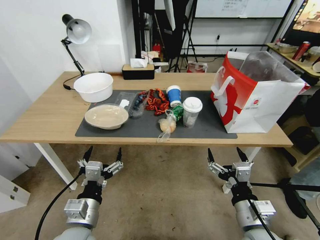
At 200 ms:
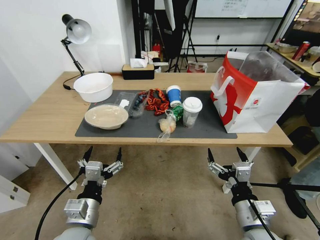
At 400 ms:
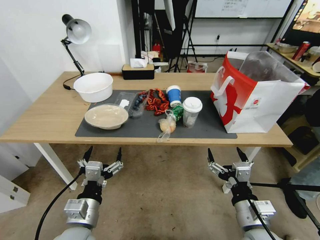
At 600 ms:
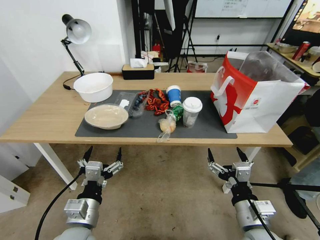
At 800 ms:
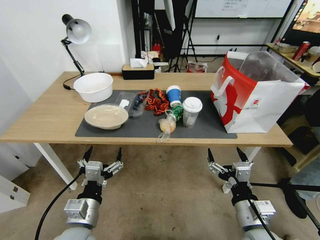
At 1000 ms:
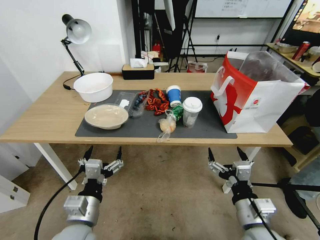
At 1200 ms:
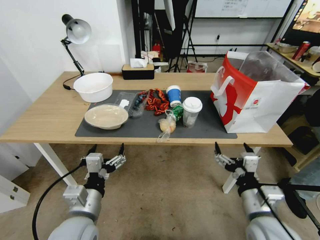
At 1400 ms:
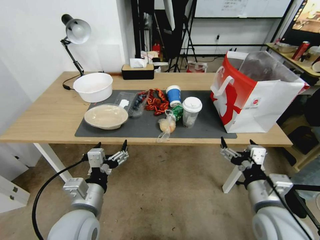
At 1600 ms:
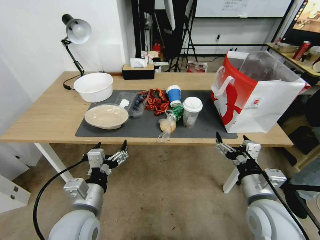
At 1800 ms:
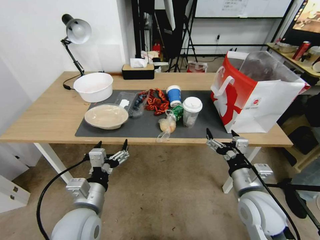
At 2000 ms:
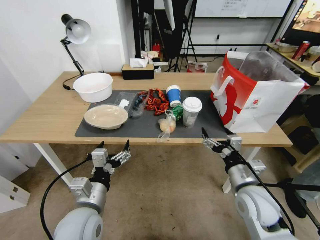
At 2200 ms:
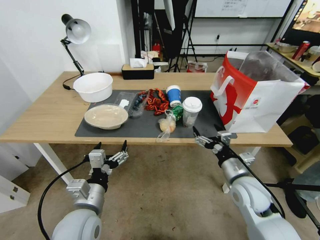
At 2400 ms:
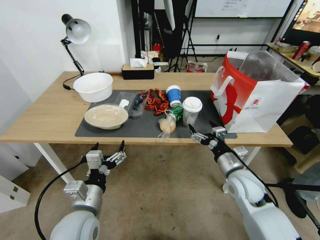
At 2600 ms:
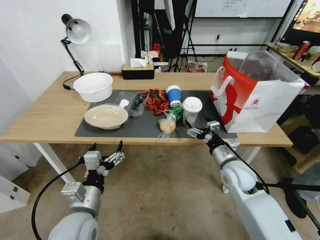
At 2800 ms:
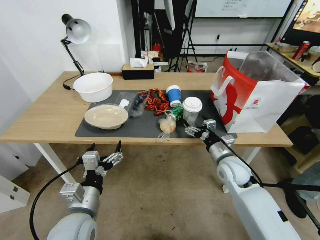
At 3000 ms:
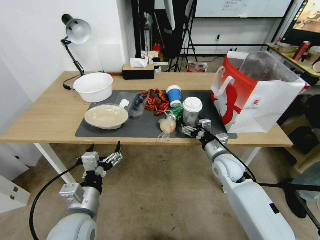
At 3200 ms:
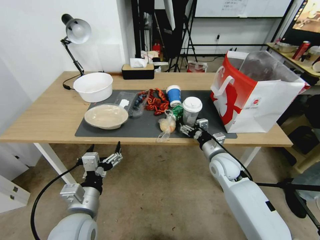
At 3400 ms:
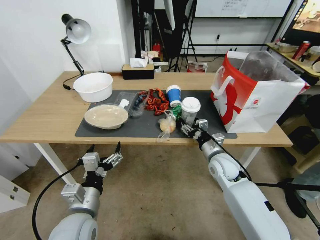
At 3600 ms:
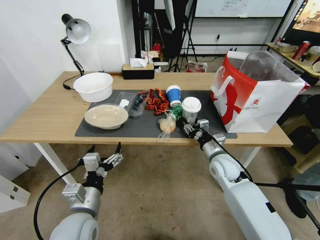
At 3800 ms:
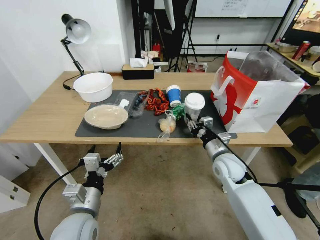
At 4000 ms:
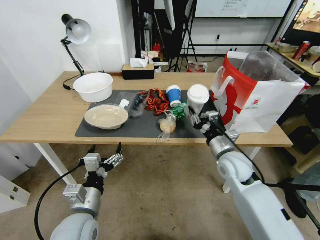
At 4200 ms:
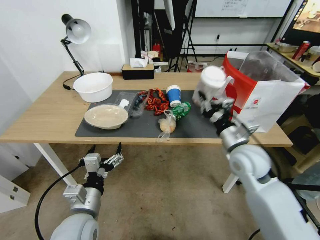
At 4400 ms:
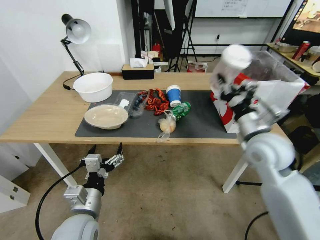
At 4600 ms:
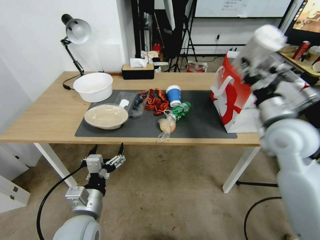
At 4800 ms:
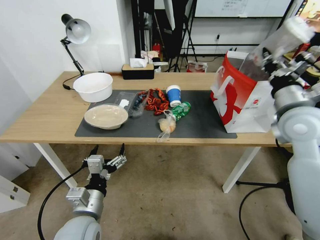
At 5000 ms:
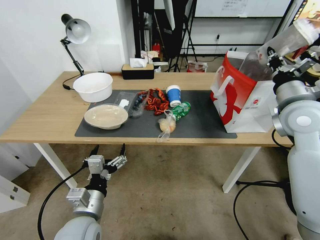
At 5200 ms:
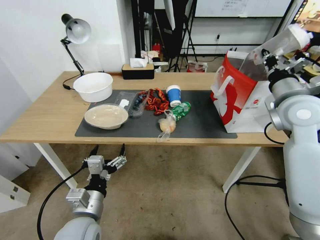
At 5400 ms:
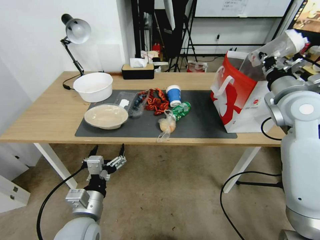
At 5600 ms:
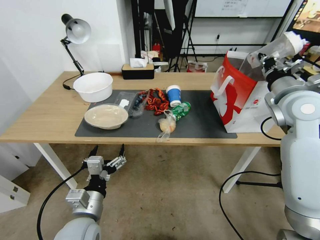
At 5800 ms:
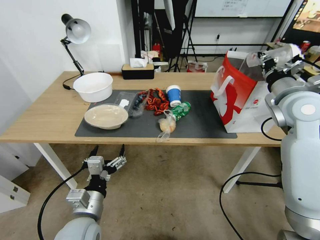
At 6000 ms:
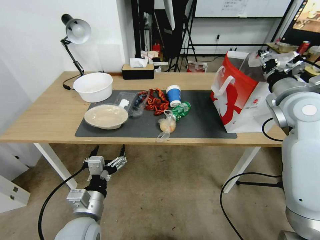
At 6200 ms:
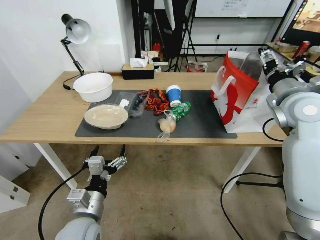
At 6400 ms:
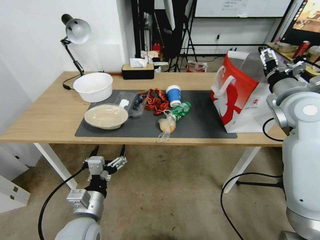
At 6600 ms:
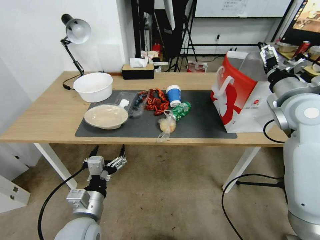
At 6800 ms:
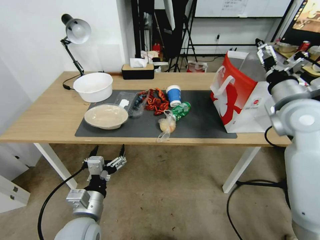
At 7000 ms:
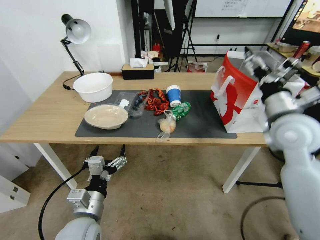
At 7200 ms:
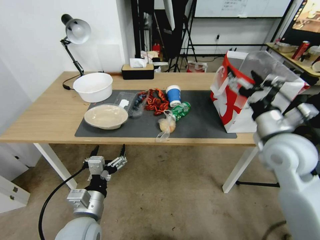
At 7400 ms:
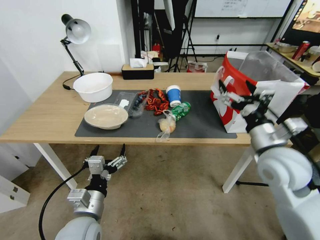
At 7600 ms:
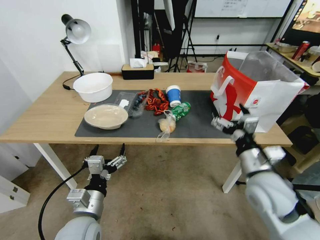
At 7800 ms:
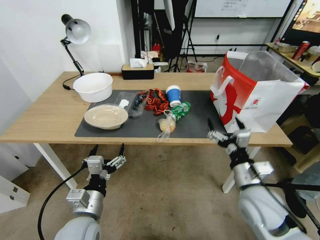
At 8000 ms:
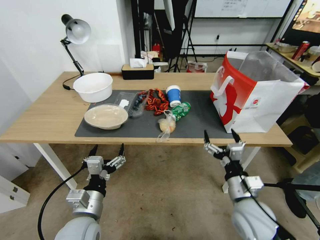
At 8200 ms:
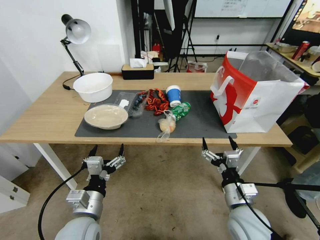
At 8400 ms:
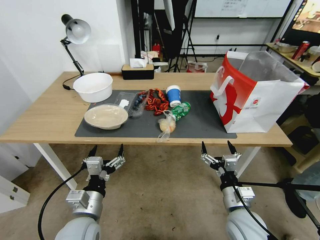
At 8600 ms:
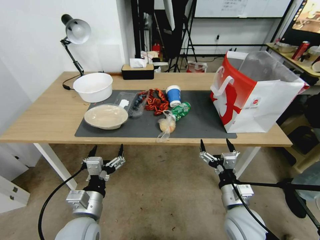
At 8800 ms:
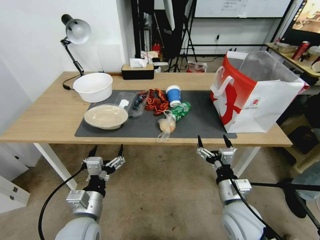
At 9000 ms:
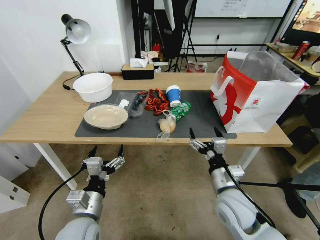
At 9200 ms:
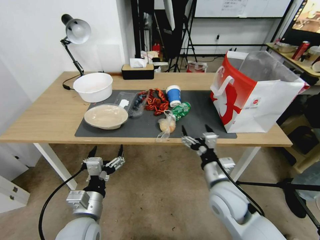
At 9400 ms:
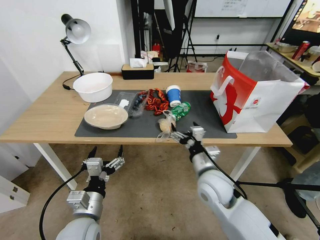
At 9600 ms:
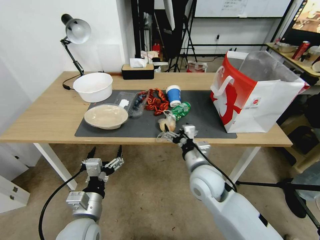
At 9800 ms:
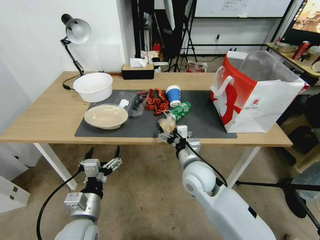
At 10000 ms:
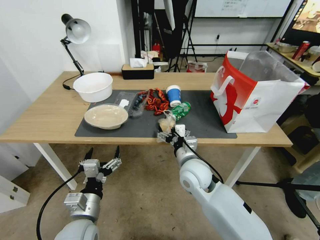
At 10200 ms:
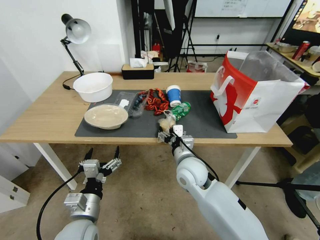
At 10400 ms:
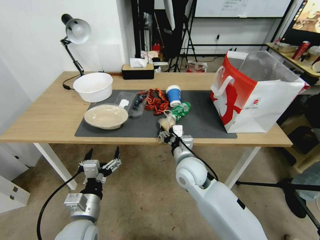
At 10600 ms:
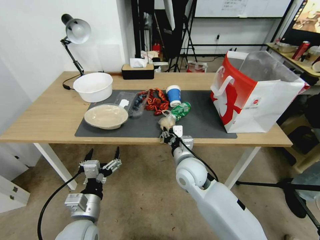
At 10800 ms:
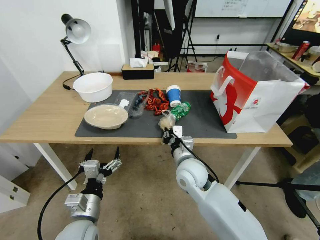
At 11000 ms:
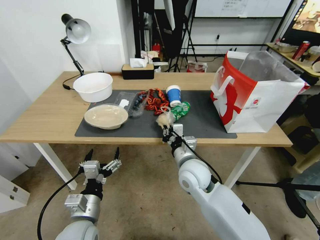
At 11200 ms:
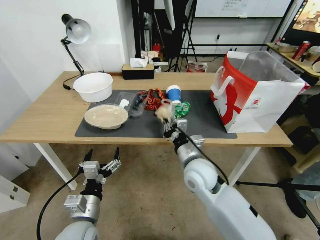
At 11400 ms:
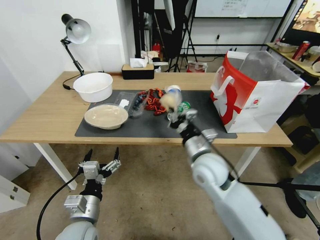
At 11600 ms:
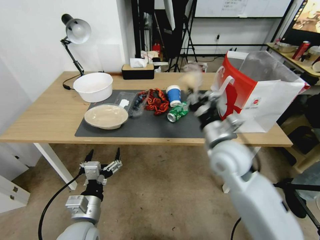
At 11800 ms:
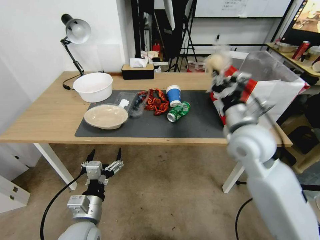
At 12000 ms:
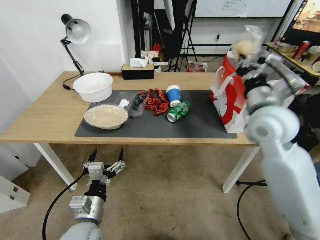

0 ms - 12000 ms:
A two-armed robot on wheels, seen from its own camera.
1600 ms - 3000 ms: The right gripper heads forward and downward, covering approximately 20 cm.
3000 ms - 4400 ms: The right gripper travels upward by about 15 cm, and closes up.
4400 ms - 6000 ms: The right gripper moves upward, to the right and forward, approximately 15 cm, and opens.
6000 ms - 7600 ms: The right gripper goes approximately 20 cm downward, backward and to the left, and opens its fingers.
7600 ms - 9000 ms: The right gripper moves downward and to the left, roughly 10 cm.
9000 ms - 10400 ms: The right gripper moves to the left and forward, some 15 cm, and closes up.
10400 ms - 12000 ms: The right gripper shifts about 25 cm upward and to the right, and closes.

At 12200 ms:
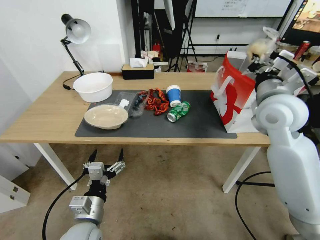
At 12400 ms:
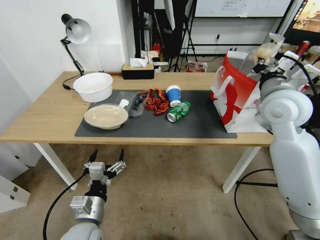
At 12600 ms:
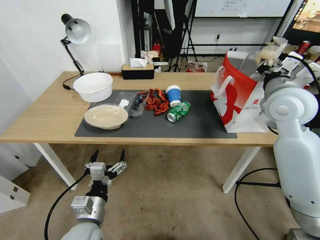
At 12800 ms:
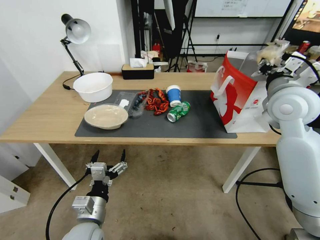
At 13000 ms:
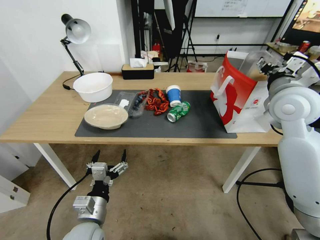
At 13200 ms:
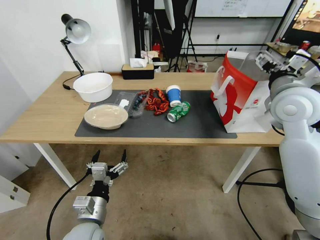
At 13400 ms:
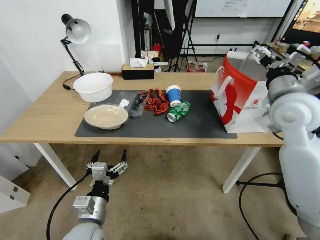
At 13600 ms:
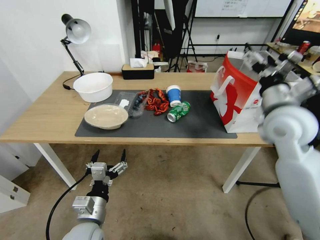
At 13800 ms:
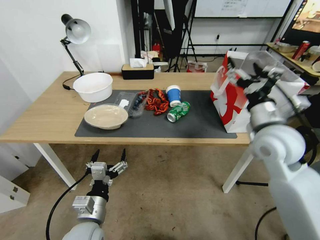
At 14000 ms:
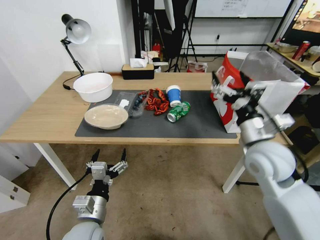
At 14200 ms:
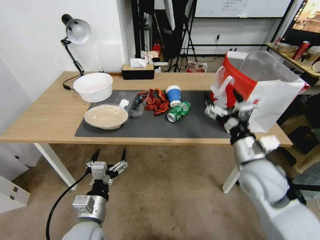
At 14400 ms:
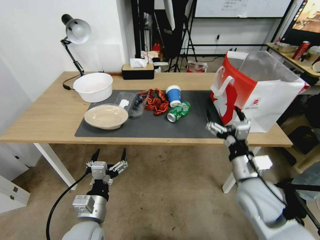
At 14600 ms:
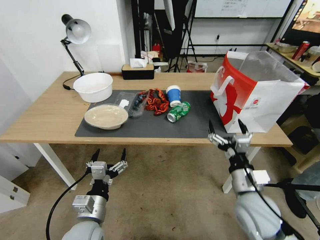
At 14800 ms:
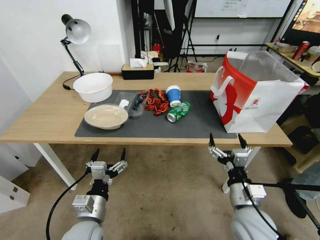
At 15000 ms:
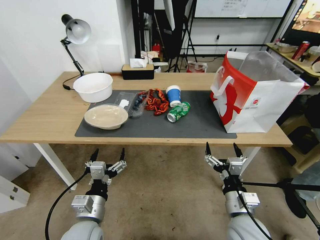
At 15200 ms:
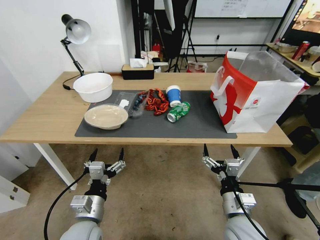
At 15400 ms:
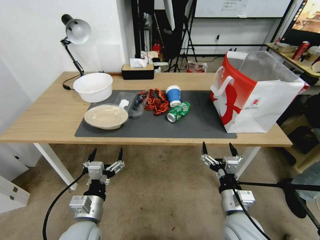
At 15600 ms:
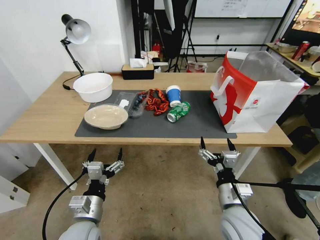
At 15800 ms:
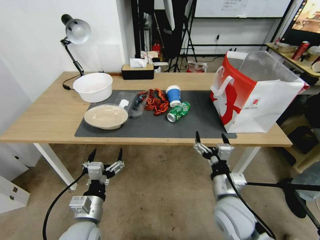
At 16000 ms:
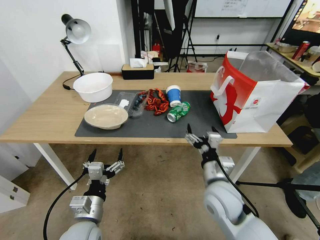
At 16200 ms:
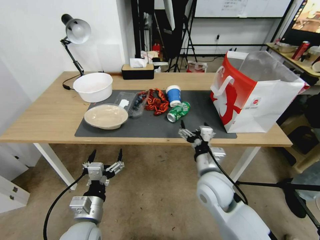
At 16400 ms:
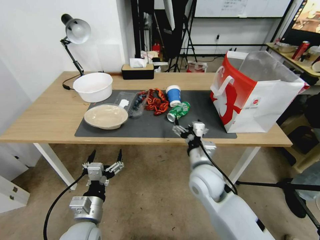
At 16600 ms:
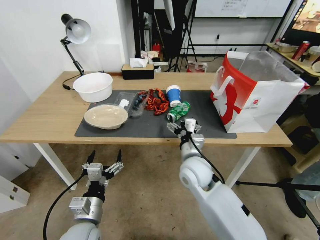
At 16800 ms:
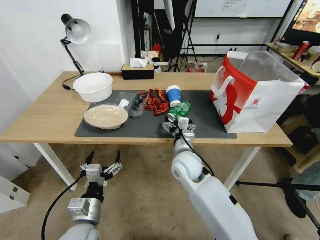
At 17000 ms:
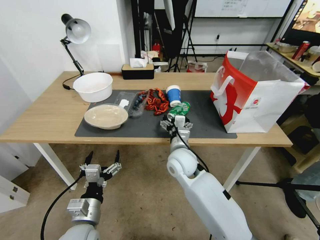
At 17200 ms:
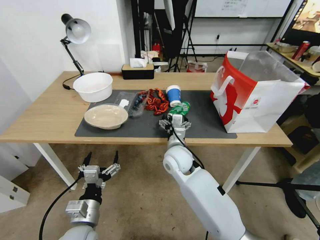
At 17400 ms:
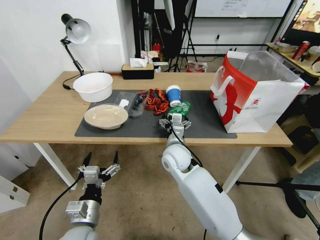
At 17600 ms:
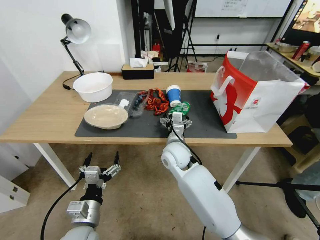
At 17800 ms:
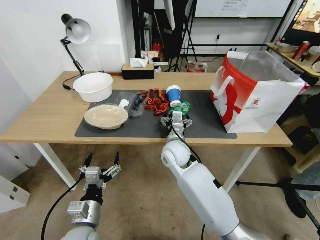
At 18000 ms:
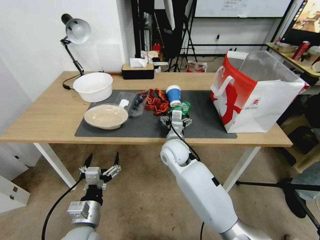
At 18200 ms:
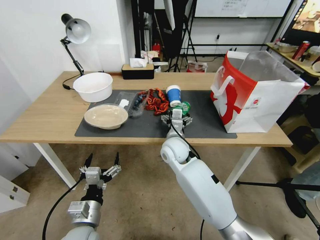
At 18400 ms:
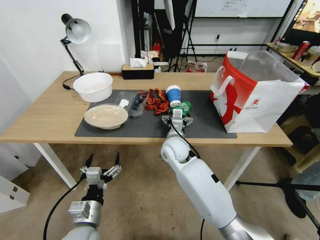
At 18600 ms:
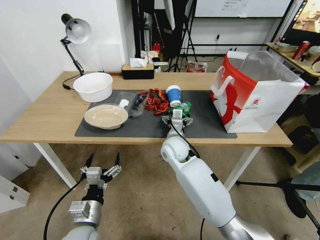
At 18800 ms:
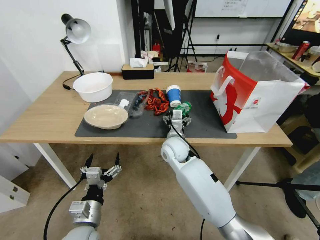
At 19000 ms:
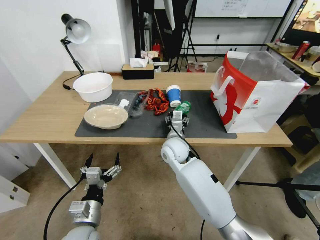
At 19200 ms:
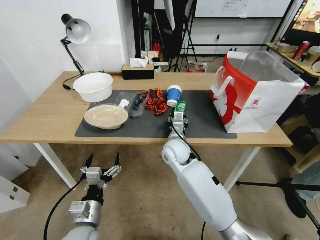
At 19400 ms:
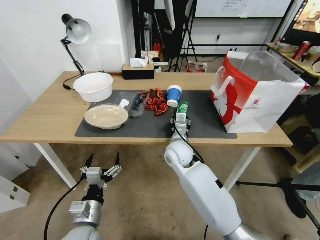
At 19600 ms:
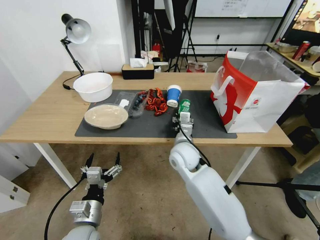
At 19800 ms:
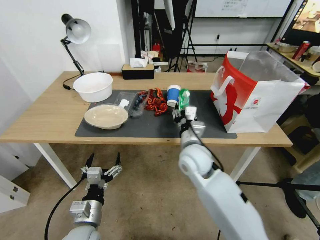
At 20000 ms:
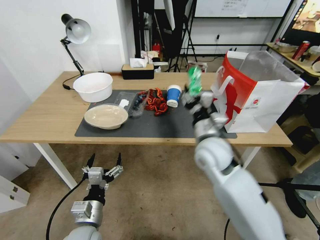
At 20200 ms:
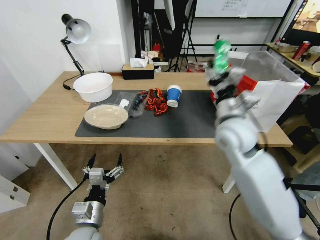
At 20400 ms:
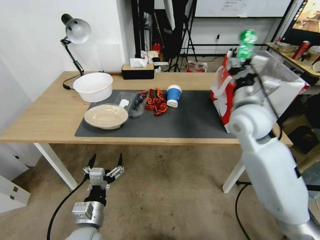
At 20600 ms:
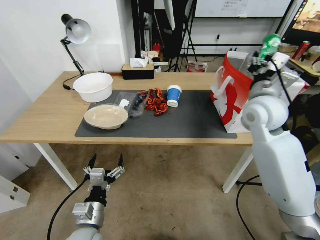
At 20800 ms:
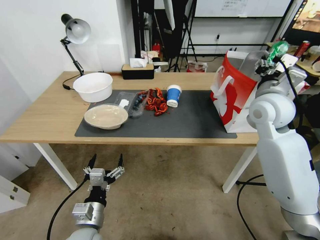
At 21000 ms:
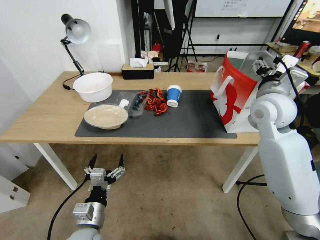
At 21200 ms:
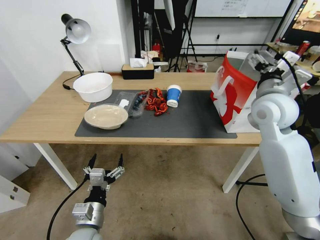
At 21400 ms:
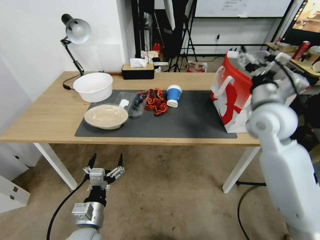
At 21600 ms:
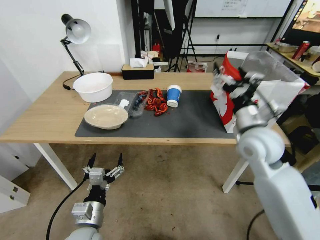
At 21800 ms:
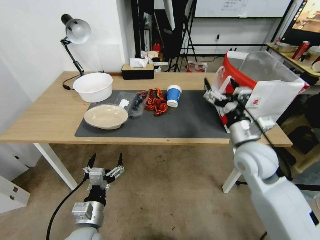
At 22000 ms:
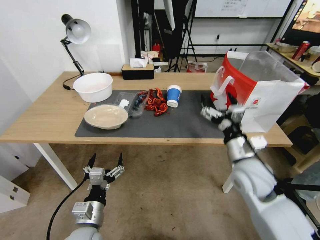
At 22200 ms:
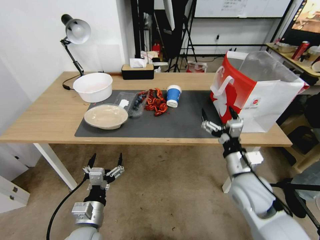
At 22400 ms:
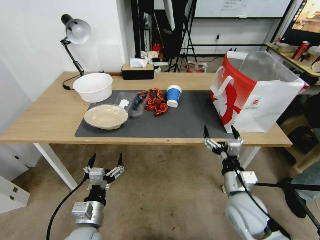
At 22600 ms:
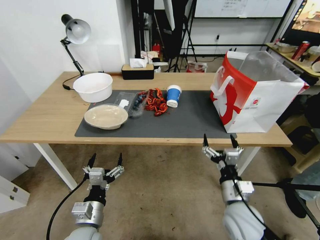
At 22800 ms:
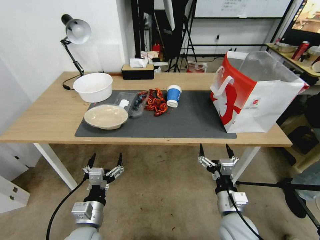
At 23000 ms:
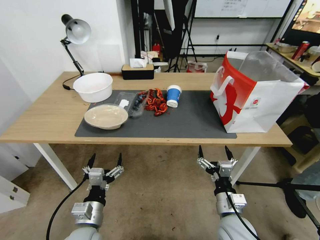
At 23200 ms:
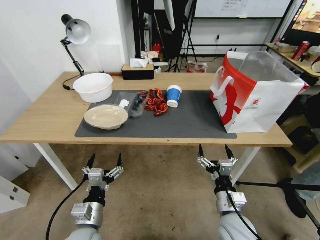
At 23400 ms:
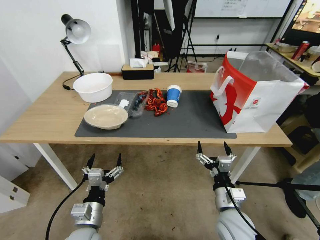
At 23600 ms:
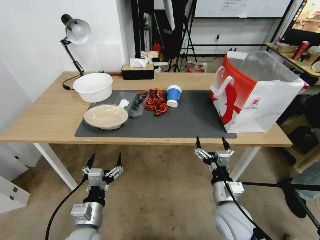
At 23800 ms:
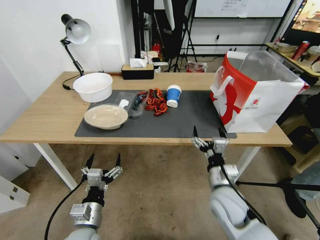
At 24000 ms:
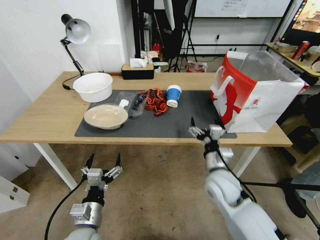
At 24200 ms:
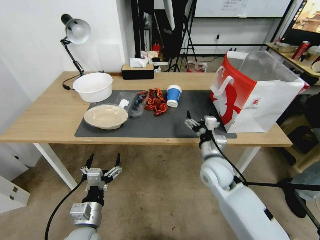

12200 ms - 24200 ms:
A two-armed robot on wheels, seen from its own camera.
12200 ms - 13800 ms: The right gripper goes approximately 10 cm downward and backward, and opens up.
13800 ms - 15200 ms: The right gripper moves downward and backward, roughly 25 cm.
15200 ms - 16600 ms: The right gripper is displaced forward, to the left and upward by roughly 20 cm.
16600 ms - 18200 ms: The right gripper is displaced forward and to the left by about 10 cm.
18200 ms - 19800 ms: The right gripper travels backward and to the right by some 10 cm, and closes its fingers.
19800 ms - 21200 ms: The right gripper shifts approximately 25 cm to the right and upward, and opens up.
21200 ms - 22600 ms: The right gripper travels downward and backward by roughly 30 cm.
22600 ms - 24200 ms: The right gripper heads forward, covering about 10 cm.
